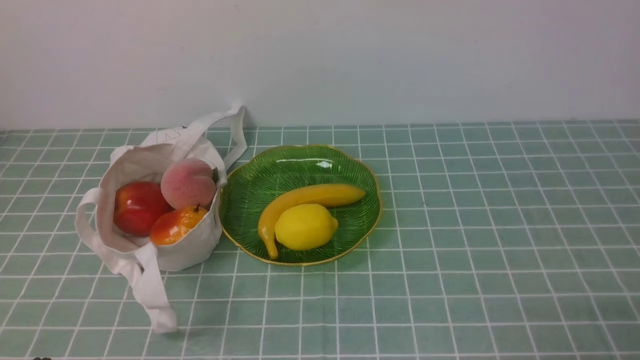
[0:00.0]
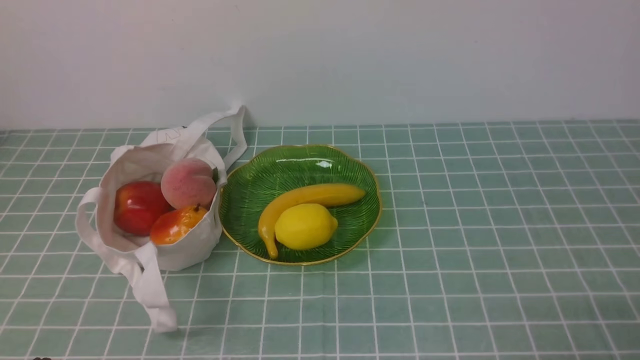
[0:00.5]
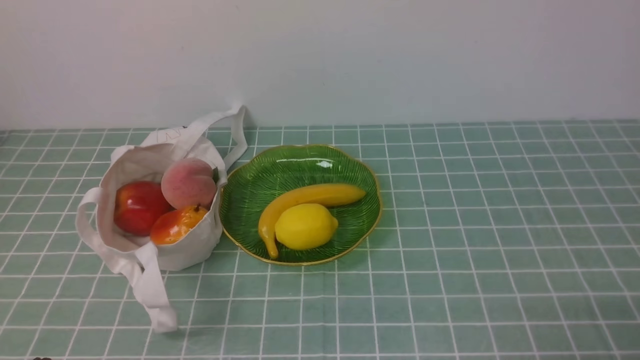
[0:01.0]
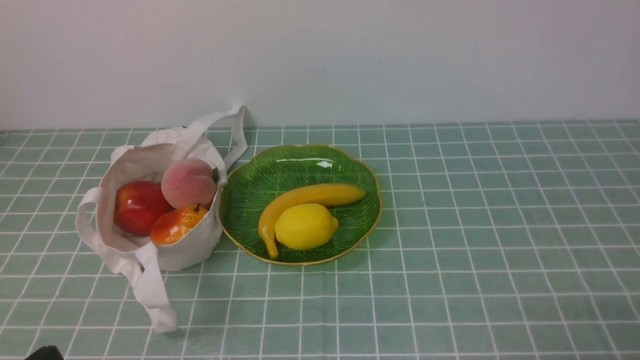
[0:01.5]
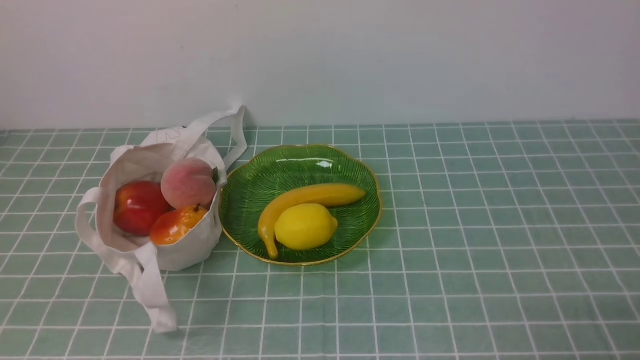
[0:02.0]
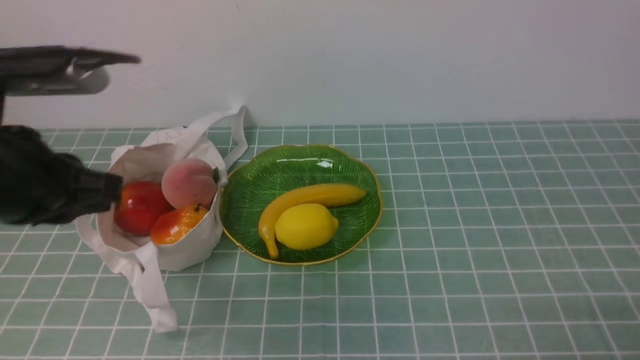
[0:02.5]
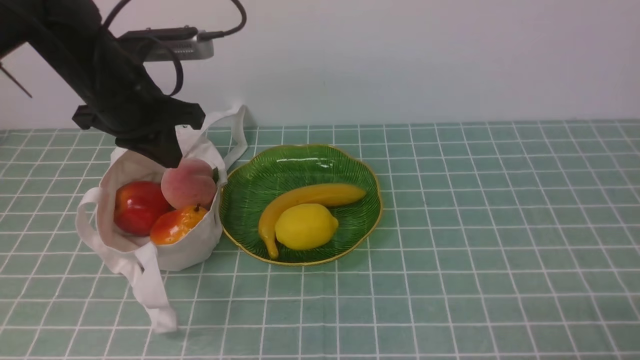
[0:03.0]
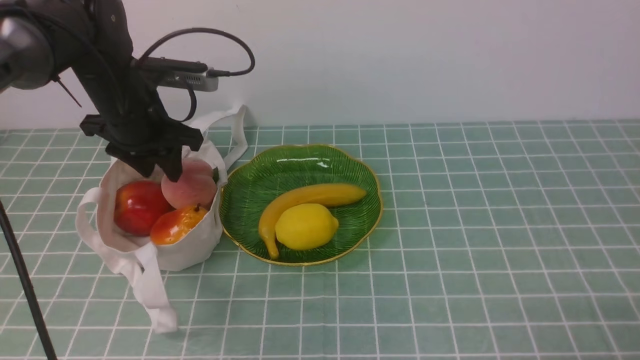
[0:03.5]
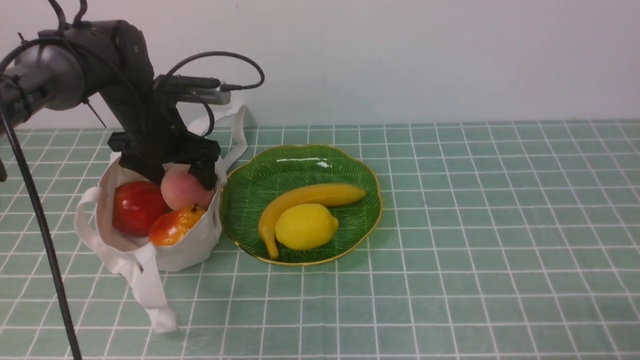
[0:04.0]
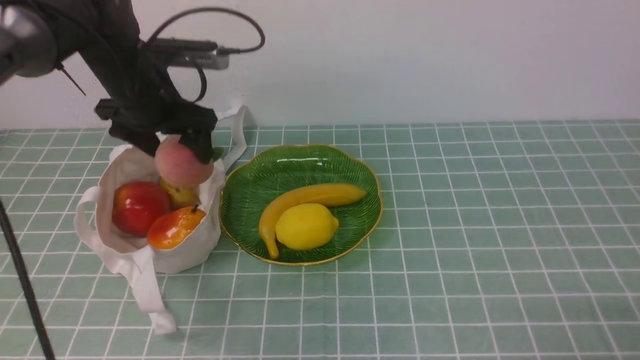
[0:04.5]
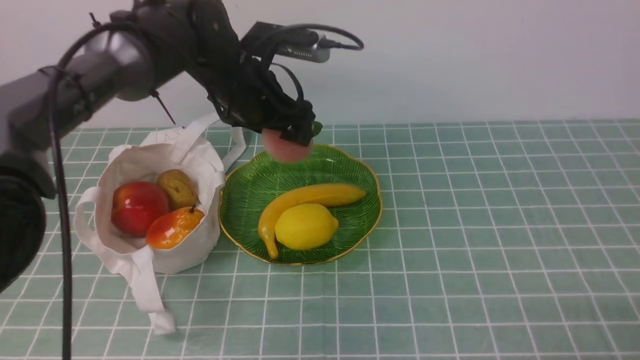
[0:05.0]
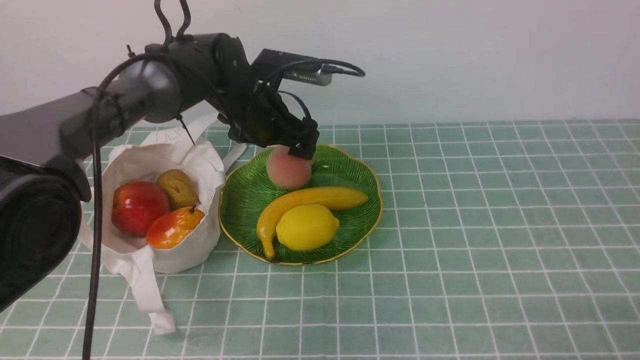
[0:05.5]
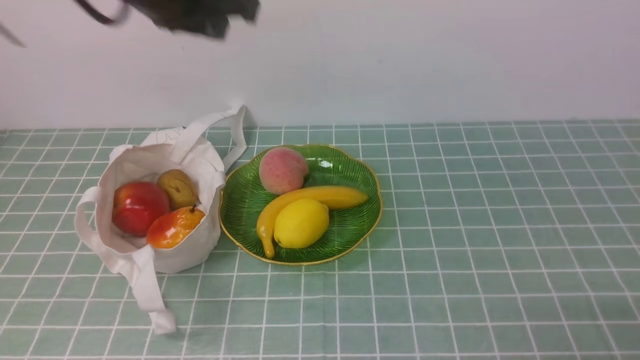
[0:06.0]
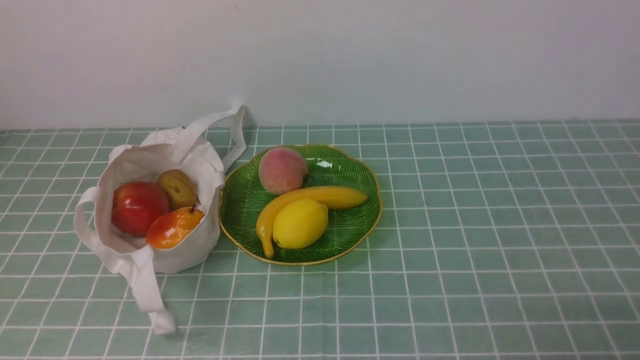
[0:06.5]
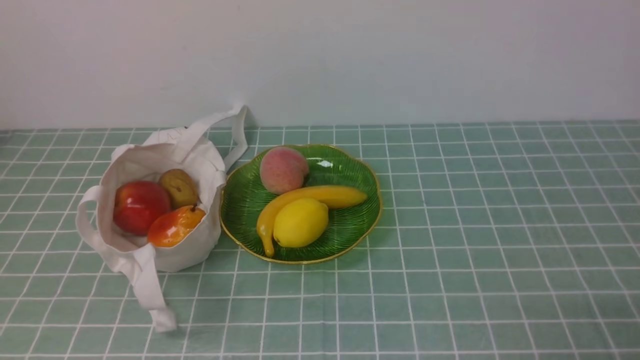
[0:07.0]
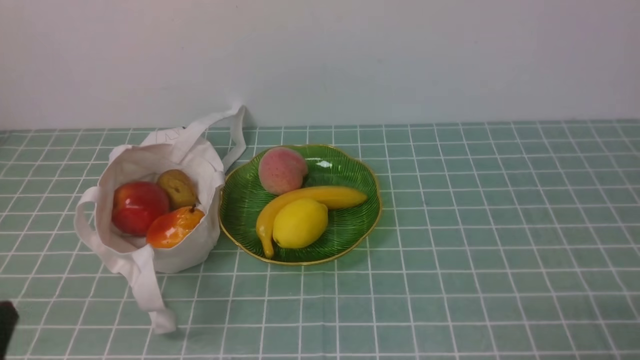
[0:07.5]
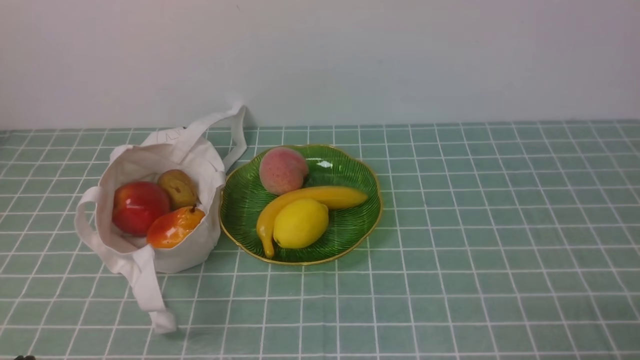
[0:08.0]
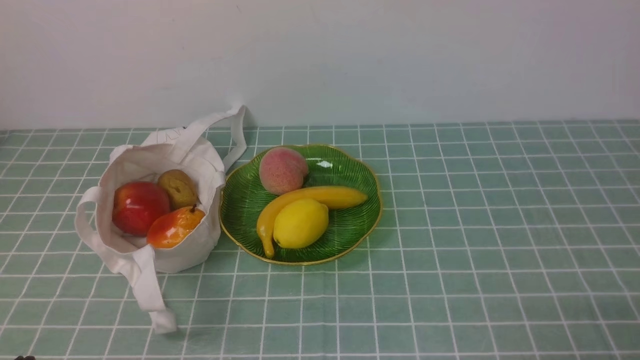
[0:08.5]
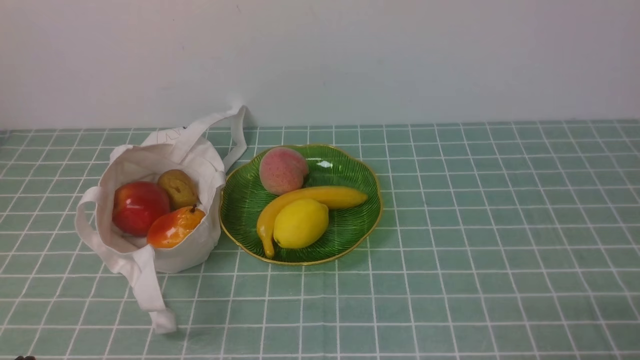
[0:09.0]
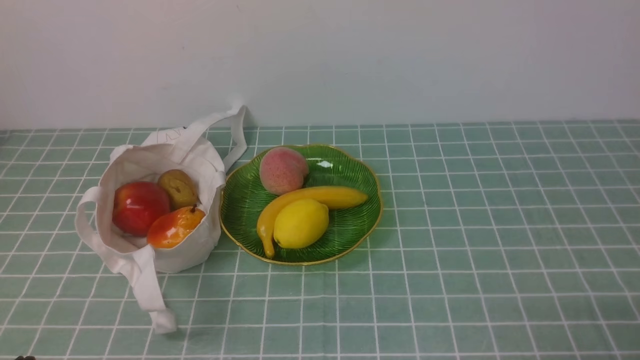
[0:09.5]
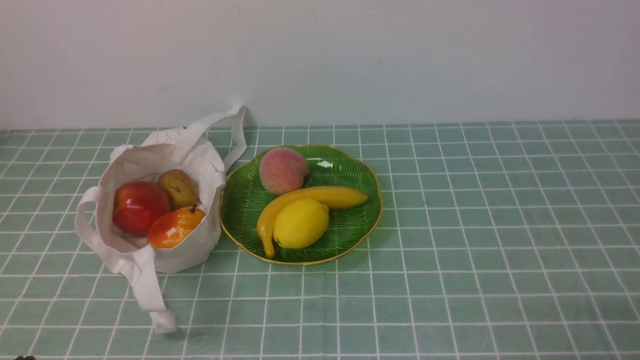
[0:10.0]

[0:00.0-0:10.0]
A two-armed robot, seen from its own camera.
Step, 0:00.0 to 0:04.0: use the left arm to grab a peach from the bag.
Step, 0:04.5 to 0:05.5: use the left arm to put the peach into the empty plate on the right.
0:02.0 to 0:04.0: The left gripper travels forward by some 40 cm, and opens its fingers.
0:04.0 to 0:06.0: The left gripper moves up and down over about 15 cm, changing direction 2 times, and closes its fingers.
0:06.0 to 0:08.0: The left gripper shifts some 40 cm backward and downward, and closes its fingers.
0:08.0 to 0:10.0: Both grippers stay put.
